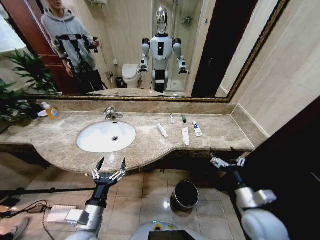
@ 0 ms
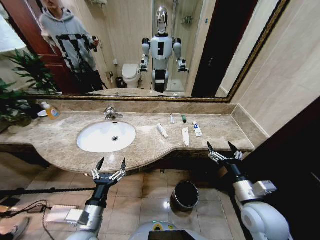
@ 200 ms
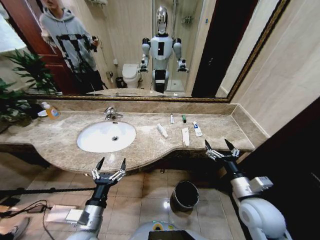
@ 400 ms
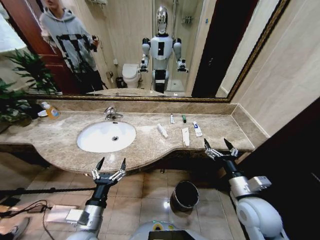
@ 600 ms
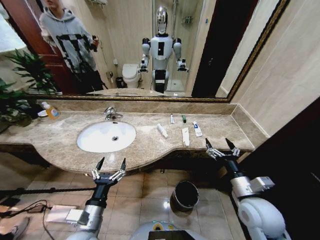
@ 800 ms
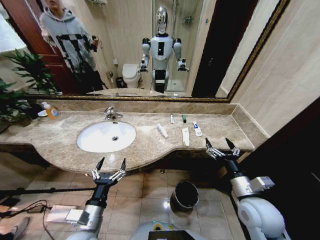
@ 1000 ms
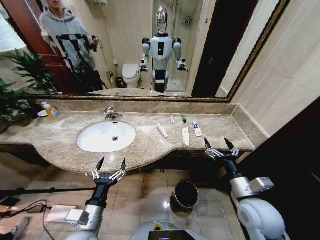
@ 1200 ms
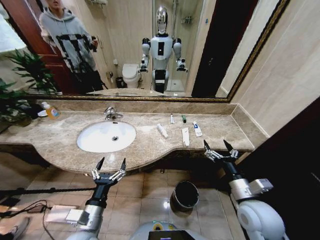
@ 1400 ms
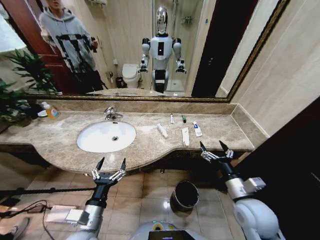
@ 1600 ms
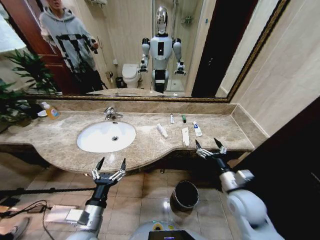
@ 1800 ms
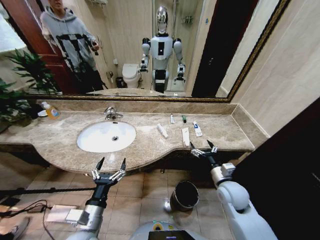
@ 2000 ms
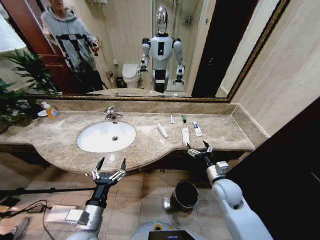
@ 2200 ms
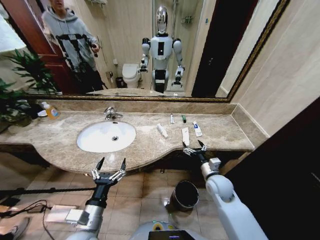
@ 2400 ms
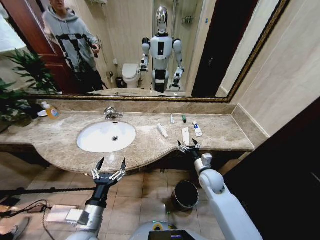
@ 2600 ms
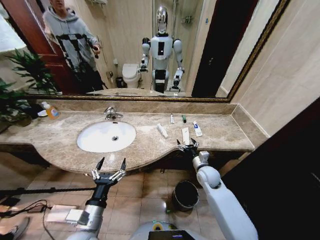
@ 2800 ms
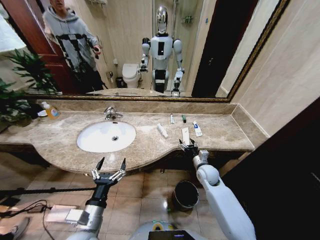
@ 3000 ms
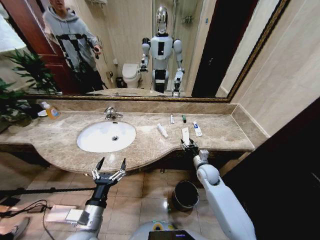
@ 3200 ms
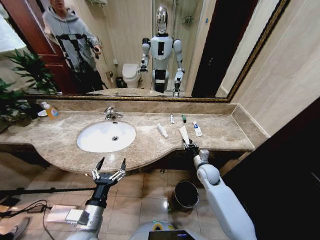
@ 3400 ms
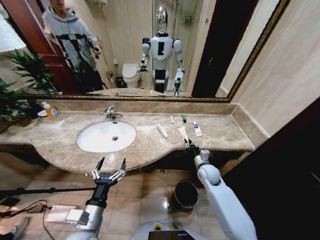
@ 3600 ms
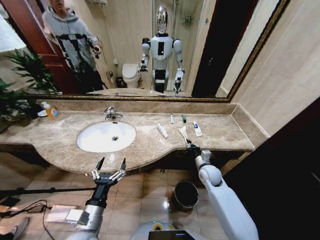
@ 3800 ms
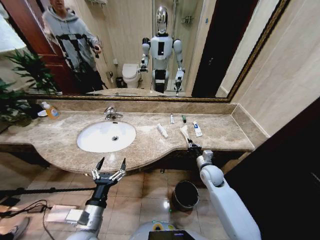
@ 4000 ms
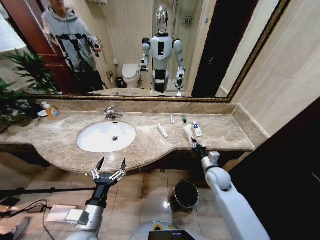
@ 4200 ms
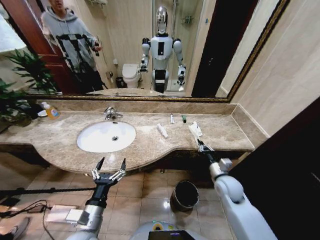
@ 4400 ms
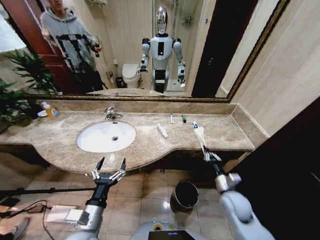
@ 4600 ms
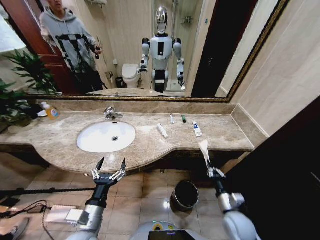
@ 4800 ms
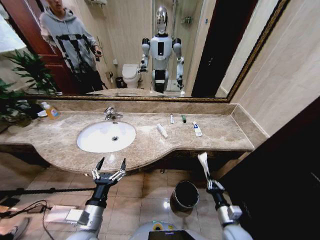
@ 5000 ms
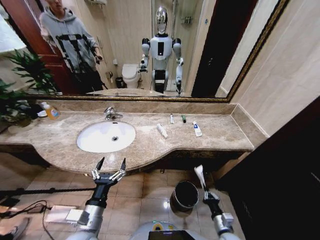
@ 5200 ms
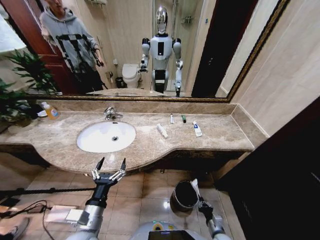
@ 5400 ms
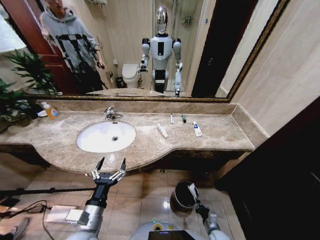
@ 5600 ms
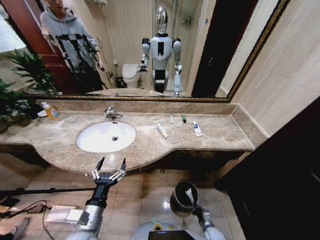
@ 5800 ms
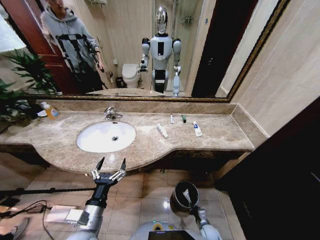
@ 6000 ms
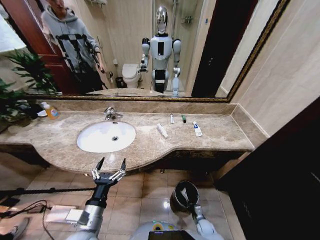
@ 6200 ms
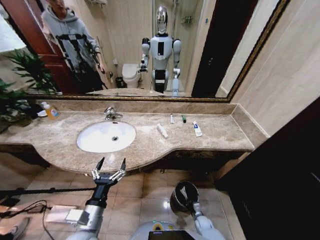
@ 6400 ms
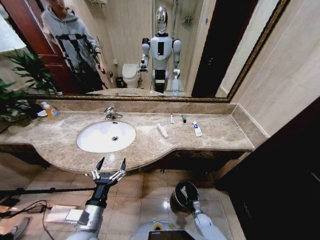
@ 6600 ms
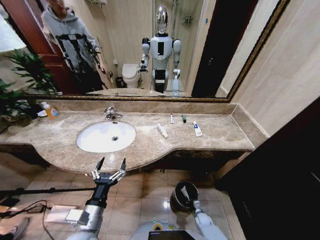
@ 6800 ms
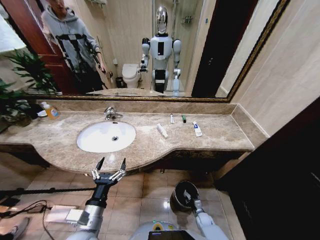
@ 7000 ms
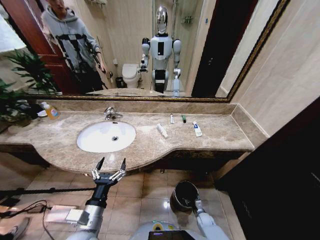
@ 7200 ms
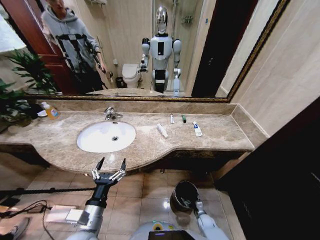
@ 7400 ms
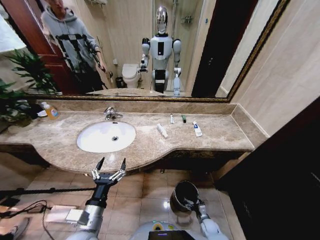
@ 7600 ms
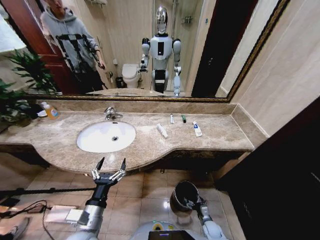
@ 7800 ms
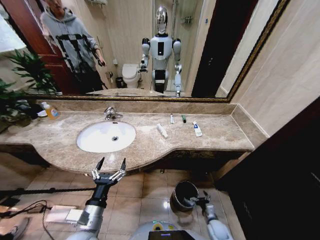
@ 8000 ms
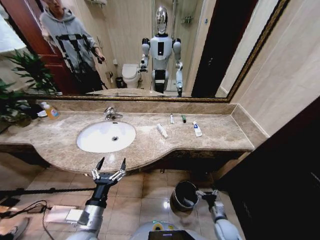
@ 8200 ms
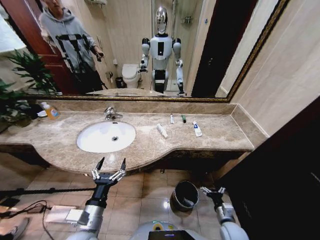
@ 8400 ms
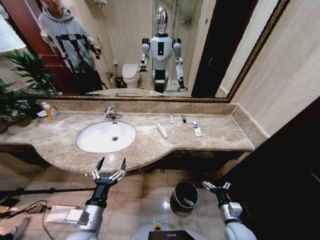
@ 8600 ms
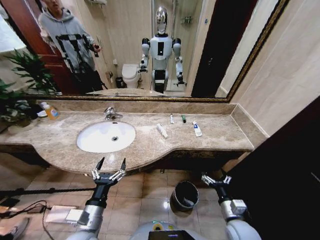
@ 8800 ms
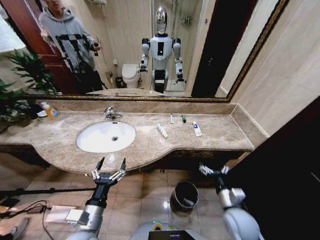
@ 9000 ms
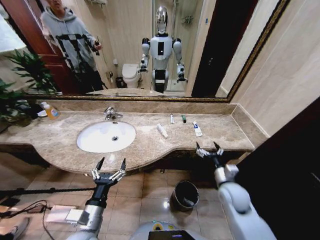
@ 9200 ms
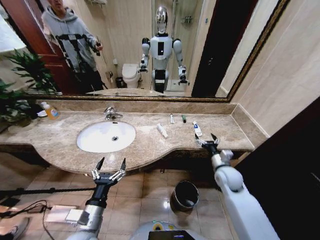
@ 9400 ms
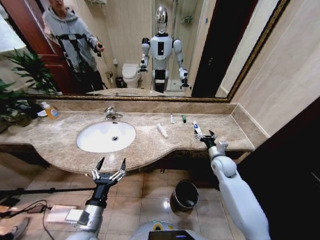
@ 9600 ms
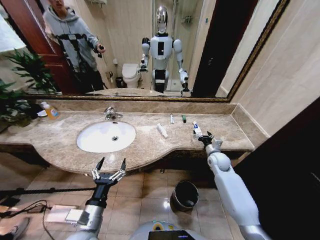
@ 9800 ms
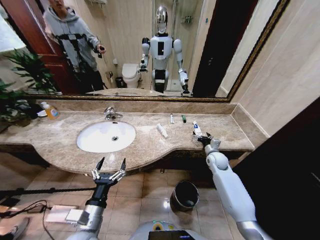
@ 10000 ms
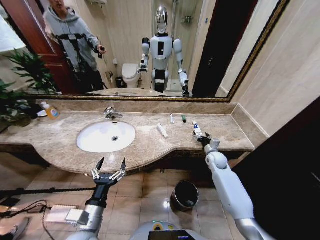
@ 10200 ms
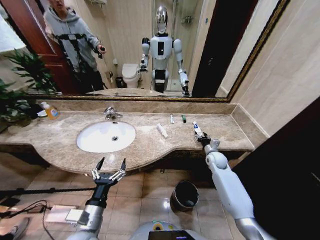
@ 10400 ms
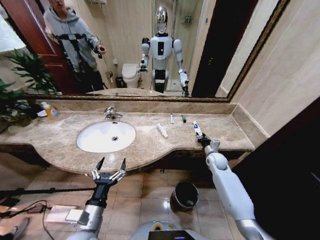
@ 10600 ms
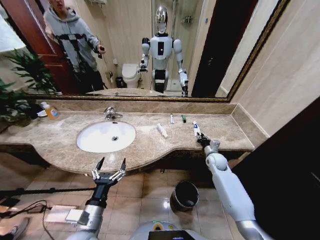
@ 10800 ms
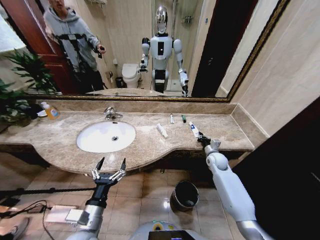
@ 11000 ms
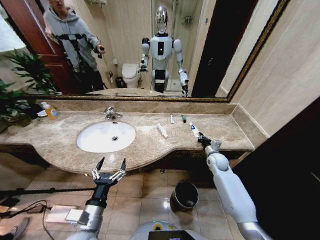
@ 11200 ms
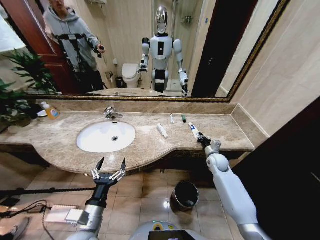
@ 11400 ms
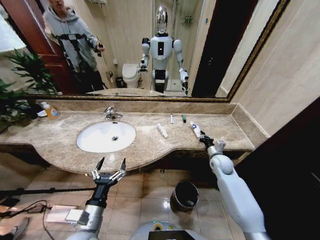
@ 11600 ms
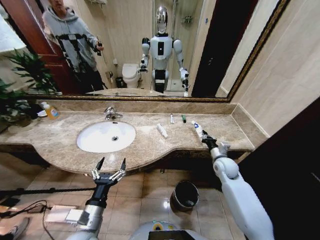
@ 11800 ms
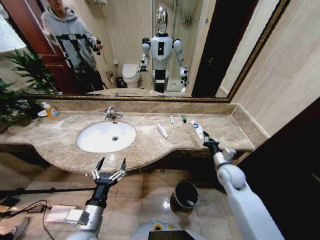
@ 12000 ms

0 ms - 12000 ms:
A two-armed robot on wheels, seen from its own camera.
Task of the whole recording: Pick up the trash from the sink and place it in the trash bin.
1600 ms - 3000 ms: The right gripper moves forward and downward, about 20 cm.
3000 ms - 4400 ms: The right gripper heads backward, covering some 5 cm, and closes.
4400 ms - 6000 ms: The right gripper moves downward, about 35 cm.
6000 ms - 7600 ms: The right gripper opens up.
7600 ms - 9000 ms: The right gripper goes about 35 cm upward.
9000 ms - 10400 ms: The right gripper shifts some 25 cm forward.
10400 ms - 12000 ms: The right gripper heads backward and upward, covering approximately 15 cm, and closes.

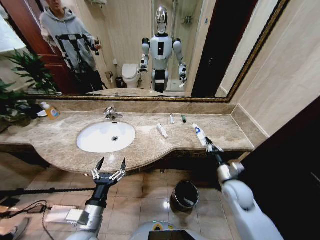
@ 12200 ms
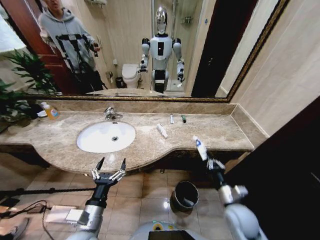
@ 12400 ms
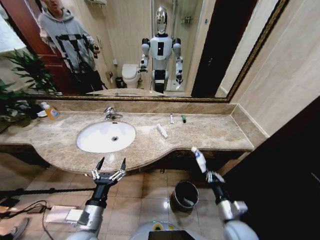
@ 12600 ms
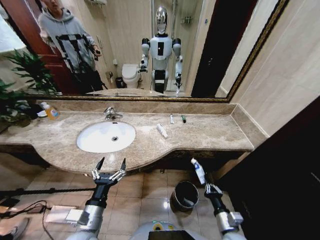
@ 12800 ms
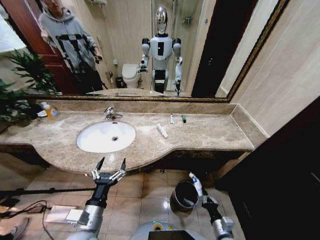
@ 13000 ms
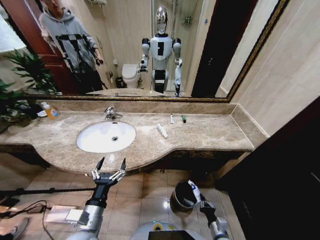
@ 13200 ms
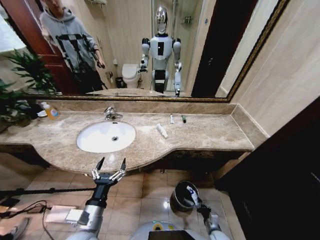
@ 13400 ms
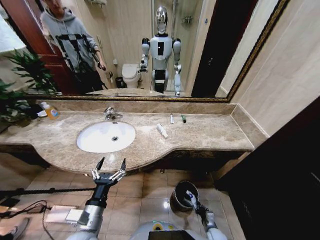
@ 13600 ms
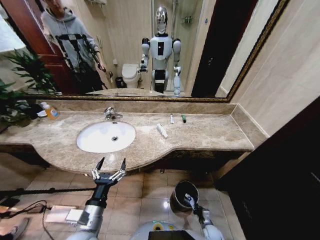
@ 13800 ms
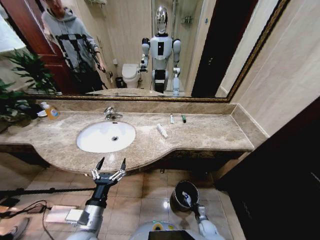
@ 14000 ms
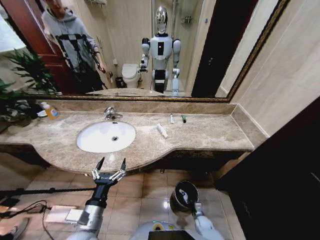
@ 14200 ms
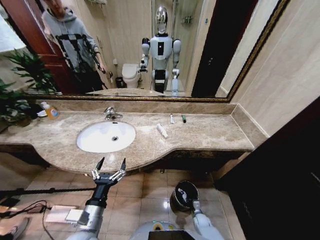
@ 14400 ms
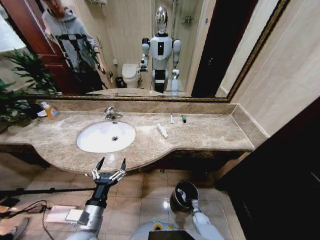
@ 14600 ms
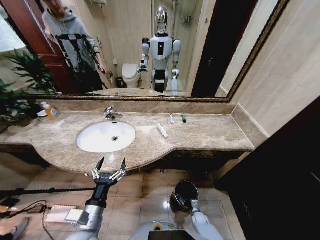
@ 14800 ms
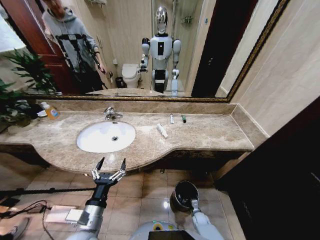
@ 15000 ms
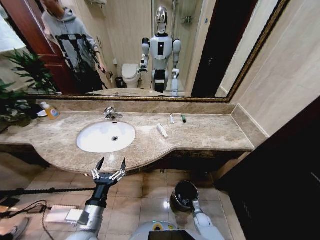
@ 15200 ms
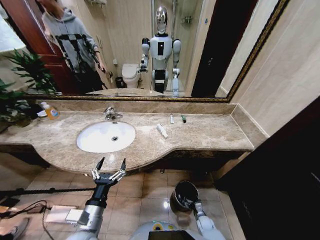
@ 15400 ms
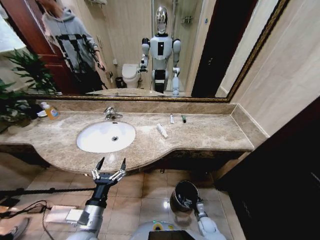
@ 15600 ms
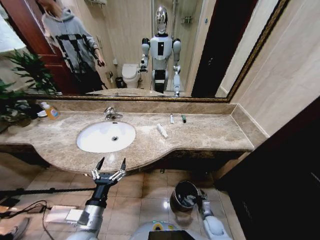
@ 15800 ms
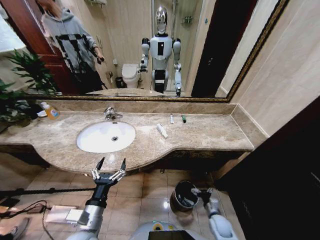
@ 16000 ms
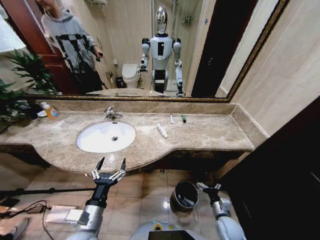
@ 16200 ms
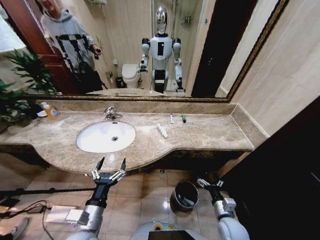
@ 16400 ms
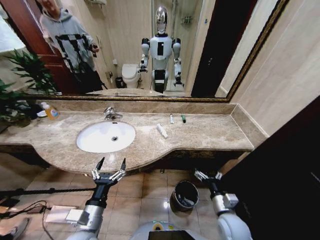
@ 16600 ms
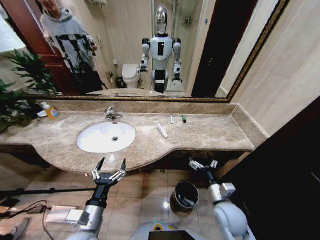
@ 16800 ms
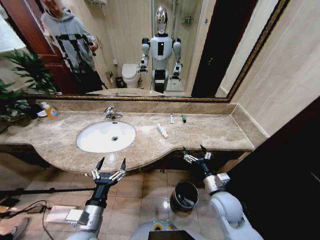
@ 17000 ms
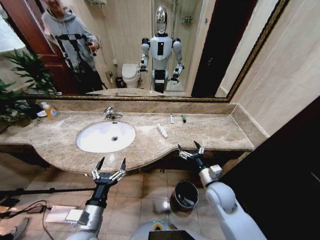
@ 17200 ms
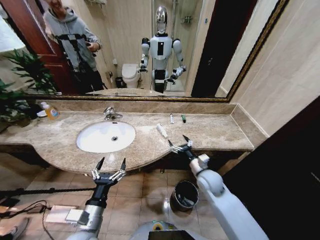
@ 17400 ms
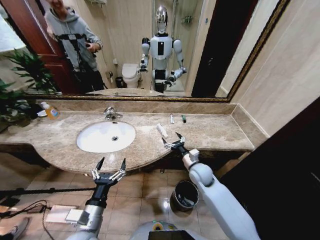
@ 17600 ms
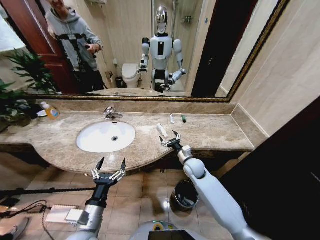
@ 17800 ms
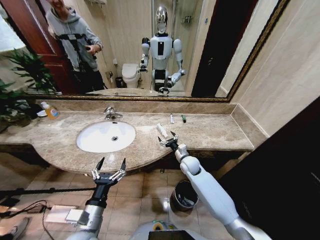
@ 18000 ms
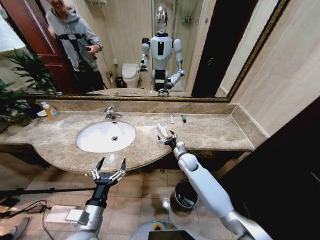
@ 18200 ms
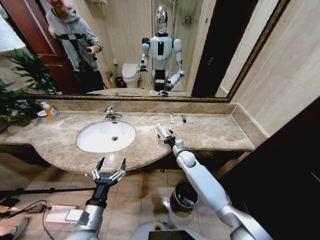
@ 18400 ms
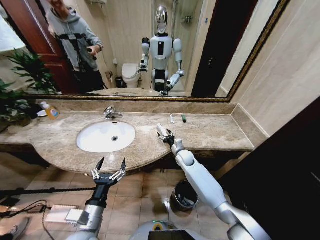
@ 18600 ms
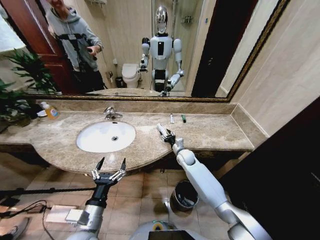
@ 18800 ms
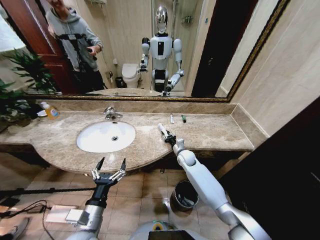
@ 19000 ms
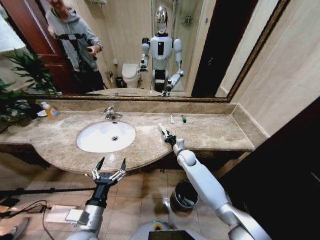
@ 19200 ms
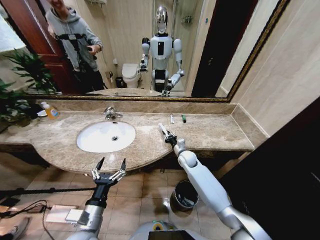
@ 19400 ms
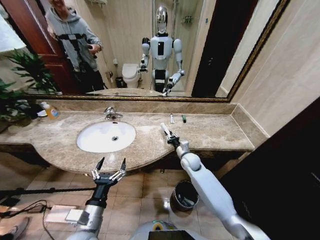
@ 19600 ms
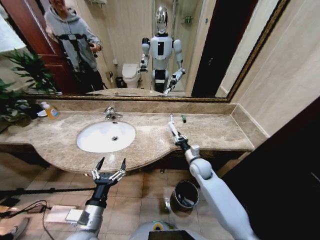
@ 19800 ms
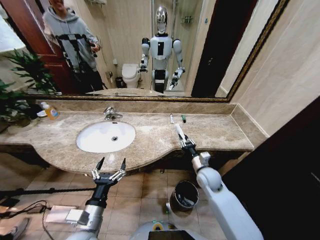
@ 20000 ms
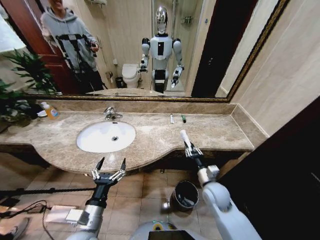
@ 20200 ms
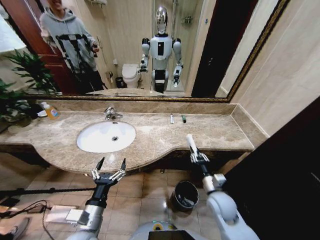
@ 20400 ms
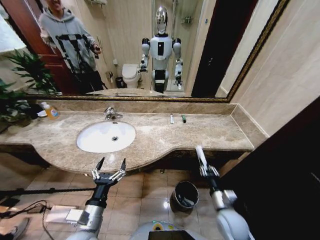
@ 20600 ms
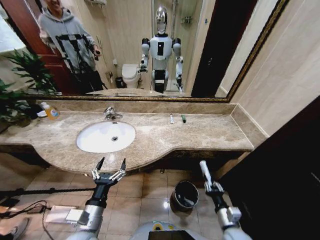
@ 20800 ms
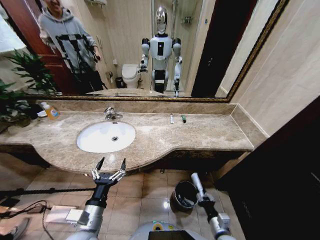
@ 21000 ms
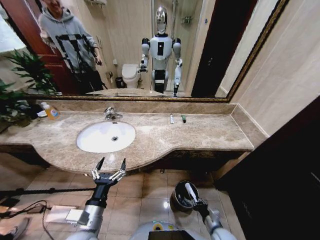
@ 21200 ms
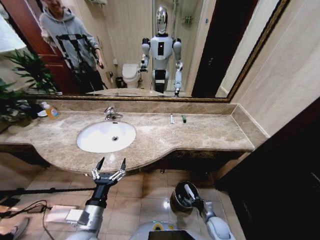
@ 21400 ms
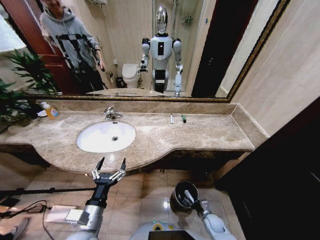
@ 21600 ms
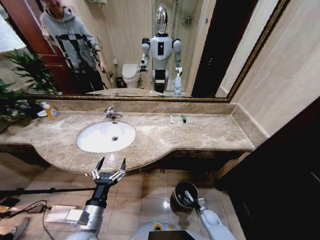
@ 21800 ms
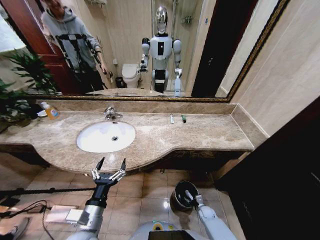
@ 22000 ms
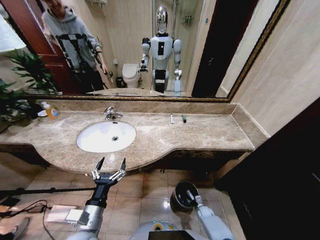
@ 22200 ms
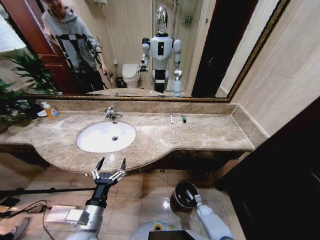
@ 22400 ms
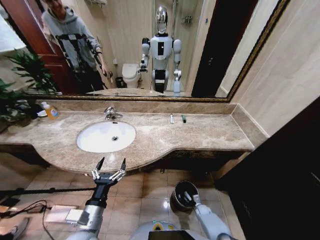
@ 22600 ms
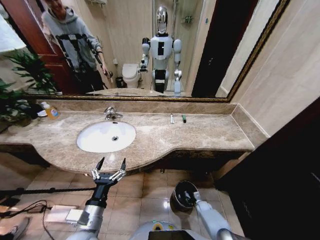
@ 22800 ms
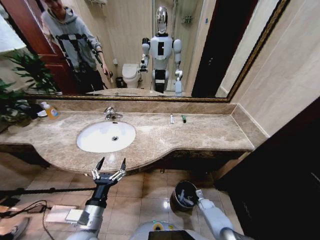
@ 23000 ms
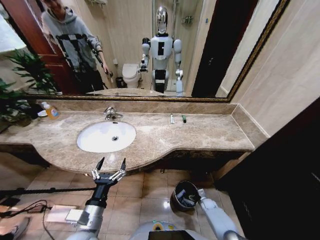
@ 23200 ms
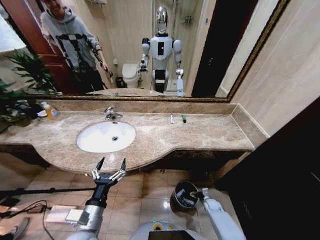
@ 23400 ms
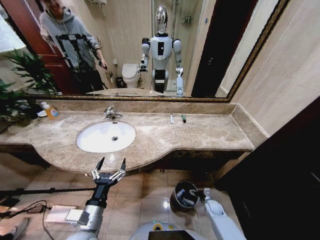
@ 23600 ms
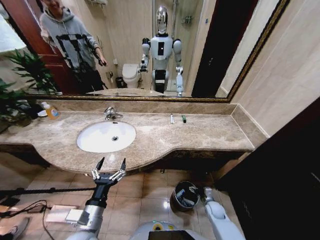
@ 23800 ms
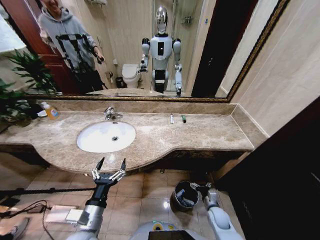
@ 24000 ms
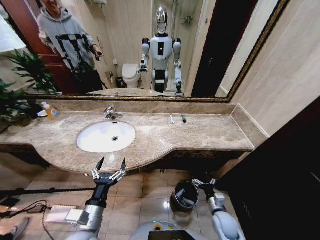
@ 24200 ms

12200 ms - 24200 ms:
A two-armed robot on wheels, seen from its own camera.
Task of the whole recording: Pick up the trash from the sink and place it in the trash bin.
12200 ms - 13800 ms: The right gripper shifts approximately 35 cm downward.
13800 ms - 15200 ms: The right gripper heads forward, covering some 5 cm, and opens up.
15200 ms - 16600 ms: The right gripper is displaced upward by about 30 cm, and opens its fingers.
16600 ms - 18200 ms: The right gripper moves forward, about 25 cm.
18200 ms - 19800 ms: The right gripper shifts some 5 cm backward, and closes its fingers.
19800 ms - 21200 ms: The right gripper moves backward and downward, some 30 cm.
21200 ms - 22600 ms: The right gripper travels downward and forward by roughly 25 cm.
22600 ms - 24200 ms: The right gripper shifts roughly 20 cm upward, and opens its fingers.
